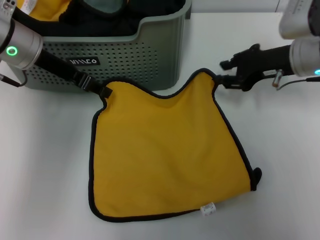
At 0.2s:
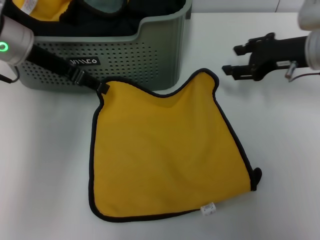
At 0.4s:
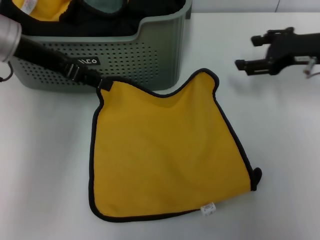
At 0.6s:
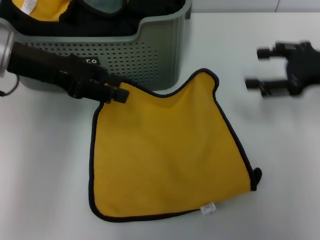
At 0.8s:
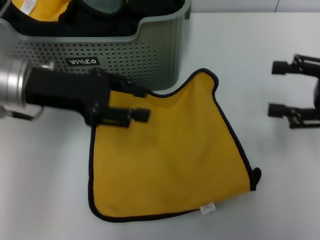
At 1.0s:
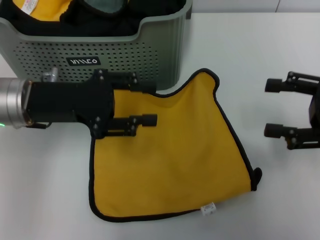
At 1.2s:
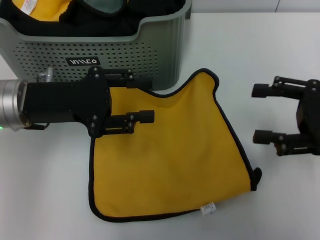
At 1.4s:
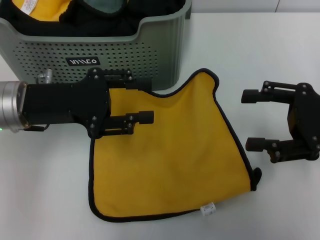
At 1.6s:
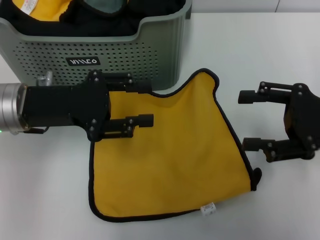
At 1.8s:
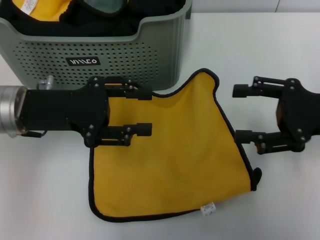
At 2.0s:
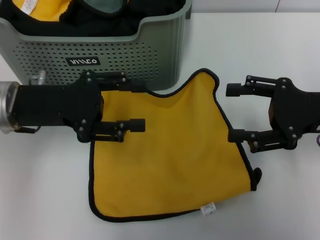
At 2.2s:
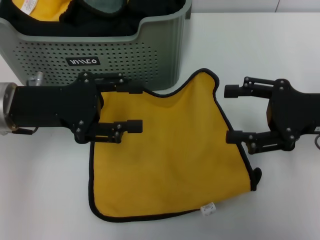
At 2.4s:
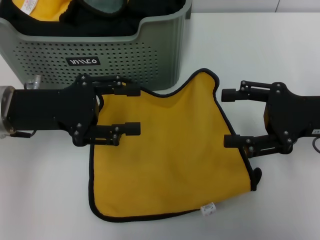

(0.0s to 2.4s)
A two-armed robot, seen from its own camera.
Task of the whole recording: pick up the towel from the storage box and lay it flat on the table.
0.0s - 1.2s: The left gripper goes about 10 cm backward, and opens its fingers; the right gripper shifts roughly 15 cm backward and to the right, and opens its fingers.
1.2s - 2.4s: There are only small adjustments of the grippers.

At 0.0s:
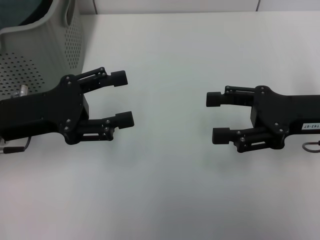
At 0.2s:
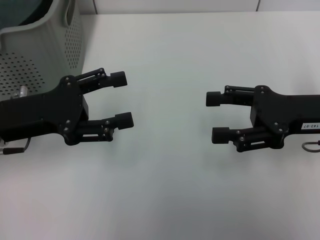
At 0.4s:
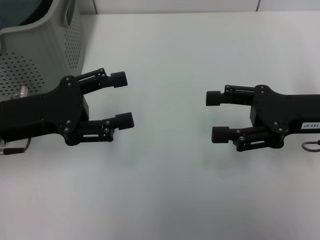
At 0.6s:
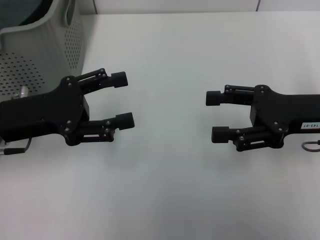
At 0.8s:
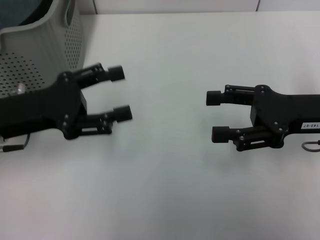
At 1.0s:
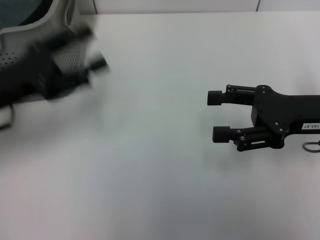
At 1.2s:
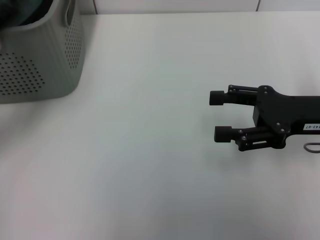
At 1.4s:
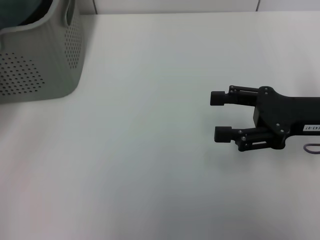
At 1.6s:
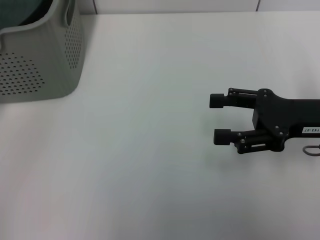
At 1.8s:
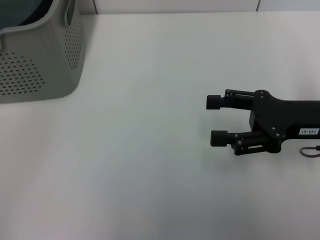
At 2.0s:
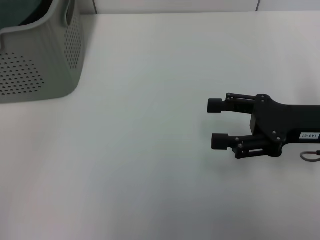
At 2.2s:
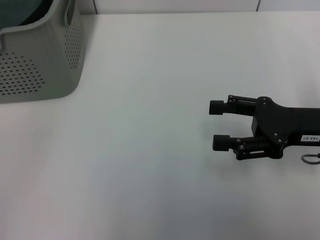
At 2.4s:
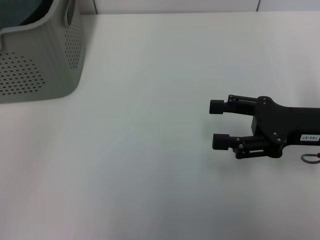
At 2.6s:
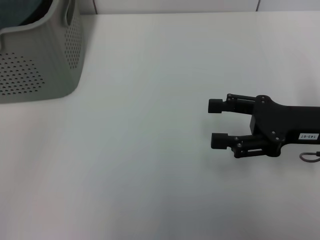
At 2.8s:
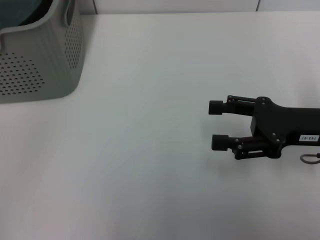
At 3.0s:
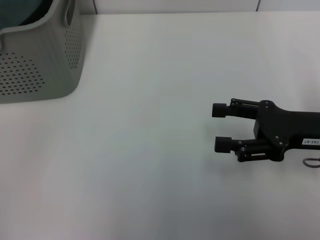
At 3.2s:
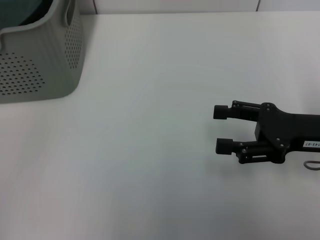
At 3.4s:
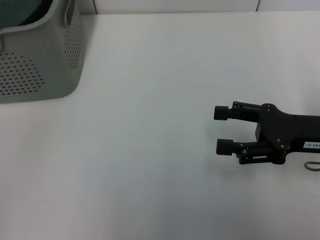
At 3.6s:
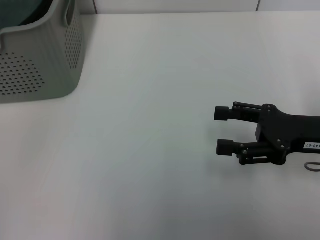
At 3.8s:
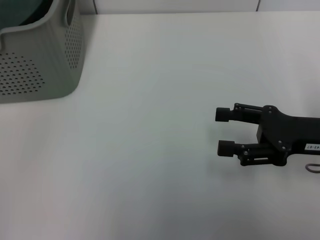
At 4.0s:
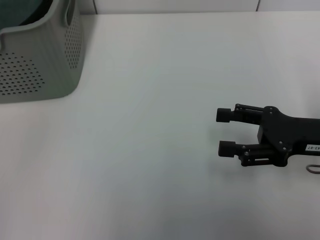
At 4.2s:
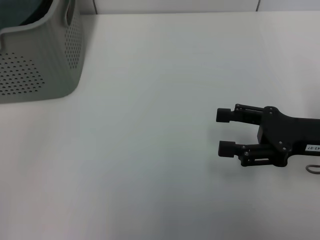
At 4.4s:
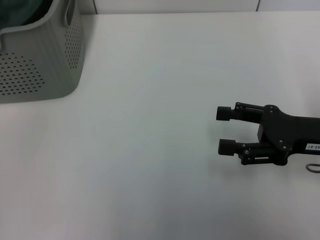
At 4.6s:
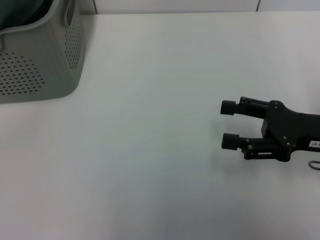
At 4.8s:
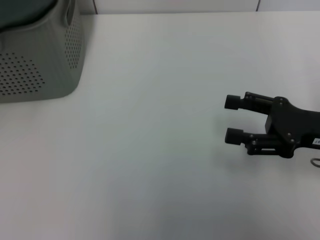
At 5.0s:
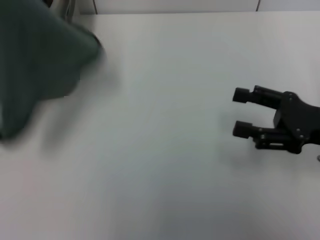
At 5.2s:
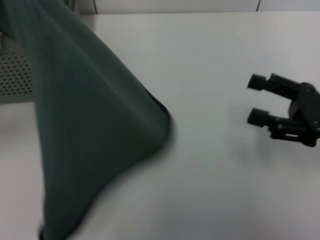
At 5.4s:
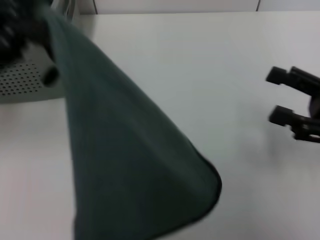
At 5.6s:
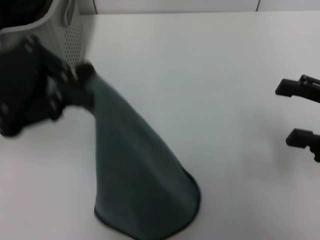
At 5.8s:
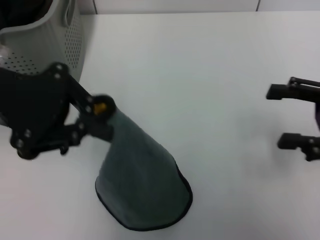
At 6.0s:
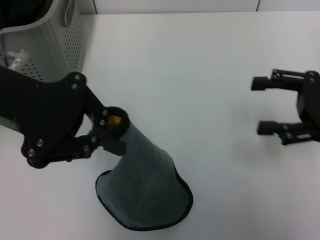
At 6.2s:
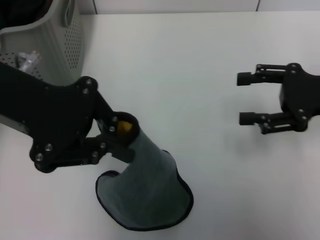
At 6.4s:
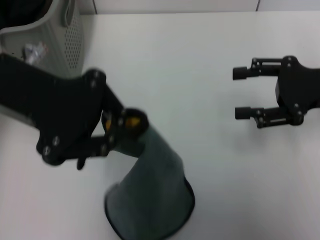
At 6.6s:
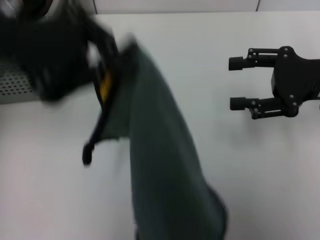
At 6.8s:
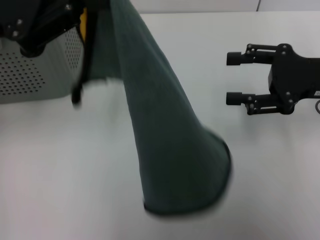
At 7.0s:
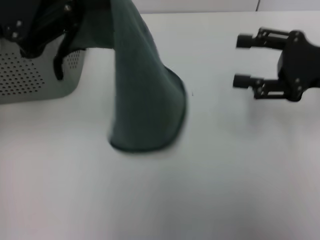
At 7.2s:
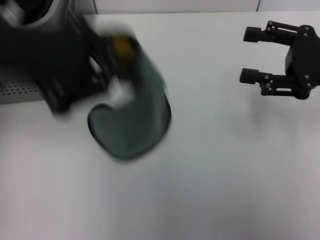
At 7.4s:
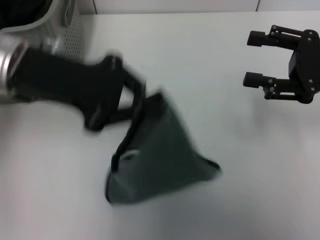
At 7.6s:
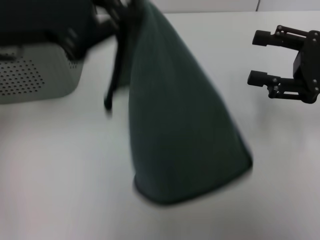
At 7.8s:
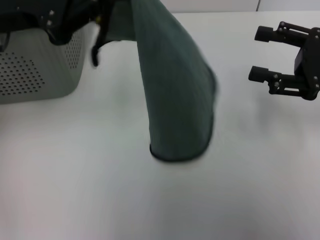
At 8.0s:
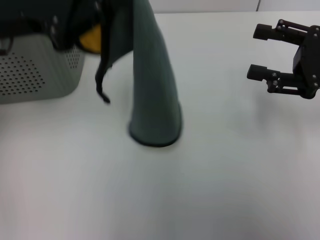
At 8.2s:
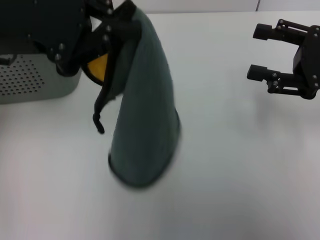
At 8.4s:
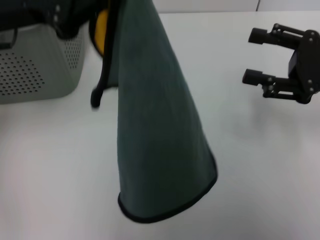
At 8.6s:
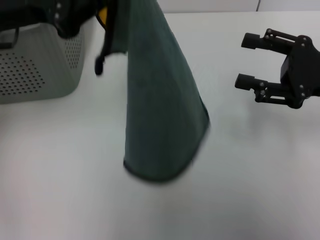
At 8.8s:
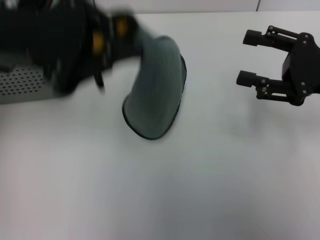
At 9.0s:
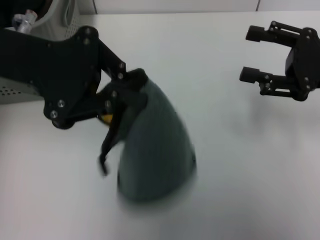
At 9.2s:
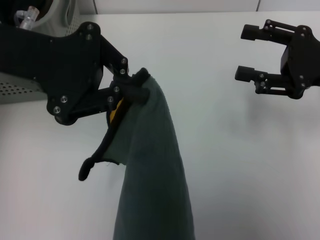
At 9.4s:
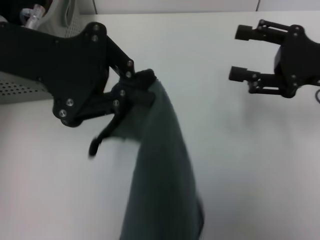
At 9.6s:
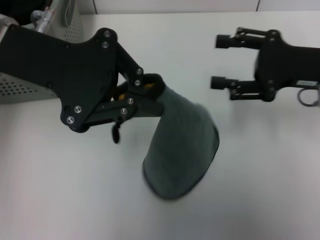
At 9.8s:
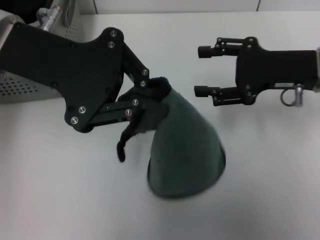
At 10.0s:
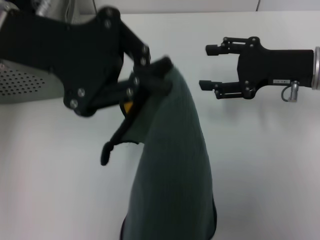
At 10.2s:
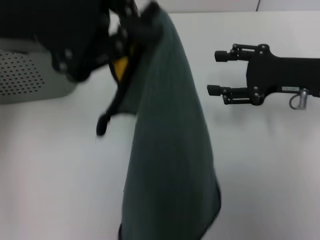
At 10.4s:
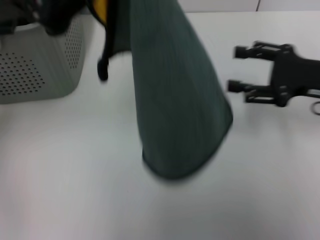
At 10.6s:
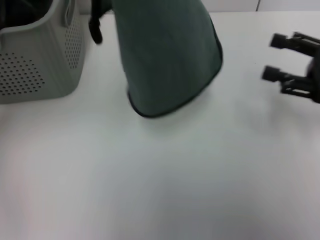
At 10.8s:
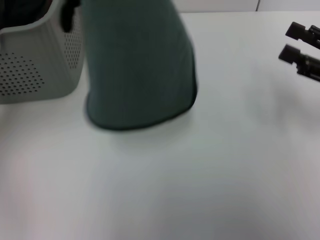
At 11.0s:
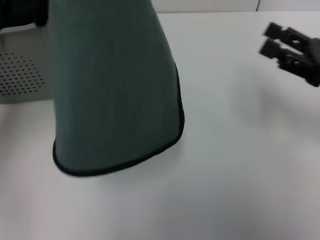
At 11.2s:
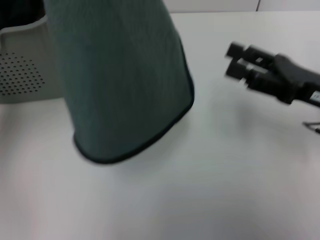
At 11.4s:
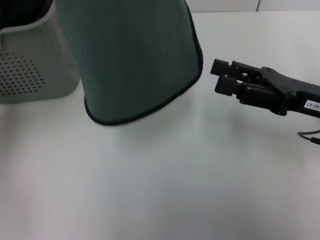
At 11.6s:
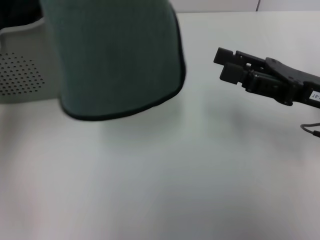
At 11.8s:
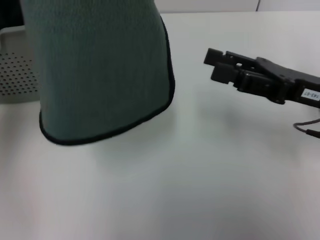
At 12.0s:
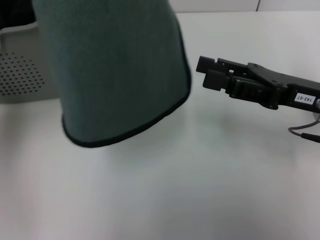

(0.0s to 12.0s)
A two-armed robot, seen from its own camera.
Task of the whole recording: pick up the towel from the storage box and lay it flat on the table.
Step, 0.0s - 4.2s: Pick up a towel with the left gripper.
0.0s - 1.6s: The left gripper is displaced to the left by roughly 10 cm.
4.4s - 6.0s: The right gripper changes place by about 5 cm. Meanwhile the left gripper travels to the right by about 15 cm.
10.4s - 12.0s: The right gripper shifts by about 5 cm.

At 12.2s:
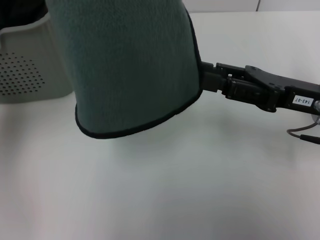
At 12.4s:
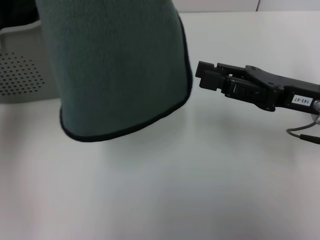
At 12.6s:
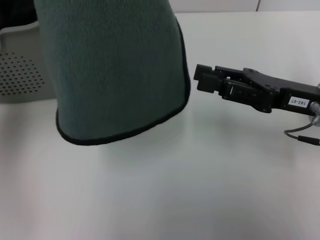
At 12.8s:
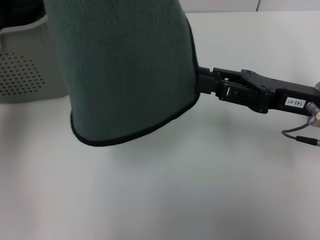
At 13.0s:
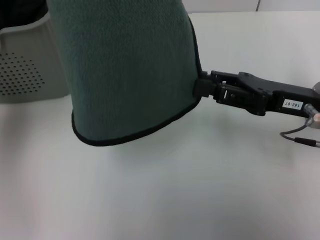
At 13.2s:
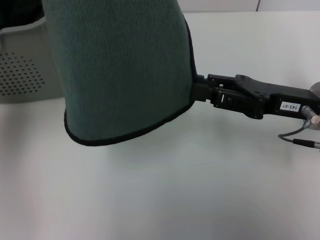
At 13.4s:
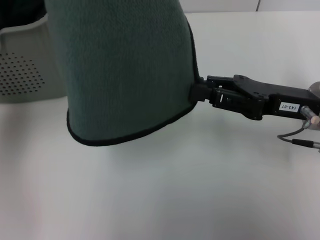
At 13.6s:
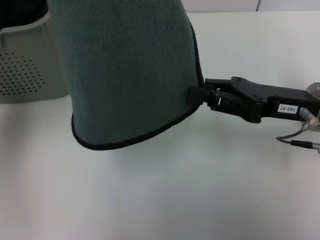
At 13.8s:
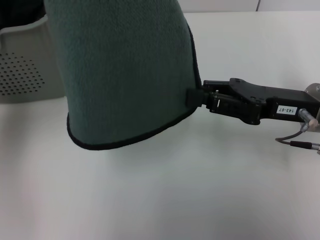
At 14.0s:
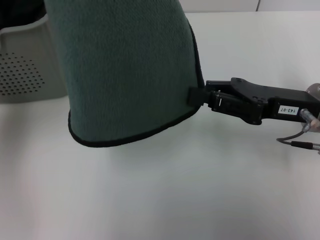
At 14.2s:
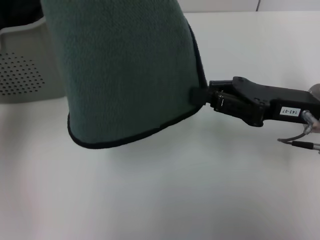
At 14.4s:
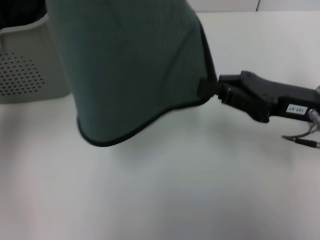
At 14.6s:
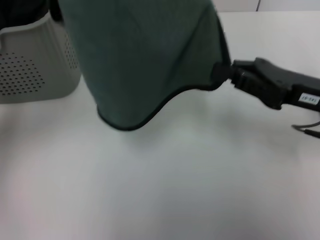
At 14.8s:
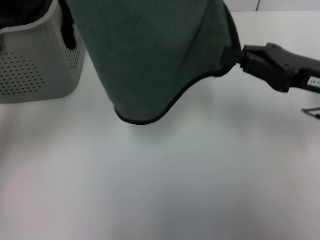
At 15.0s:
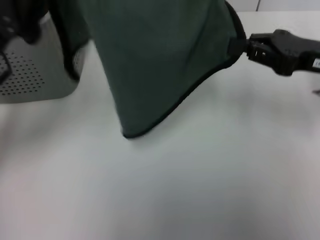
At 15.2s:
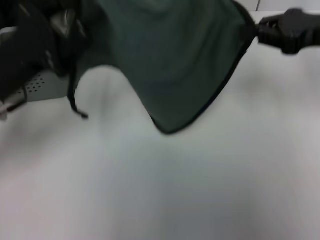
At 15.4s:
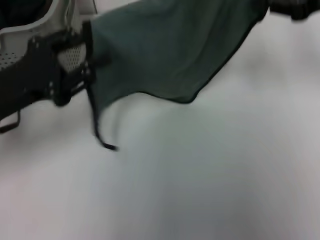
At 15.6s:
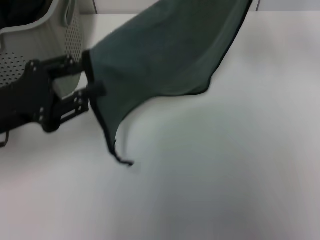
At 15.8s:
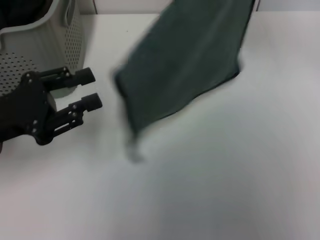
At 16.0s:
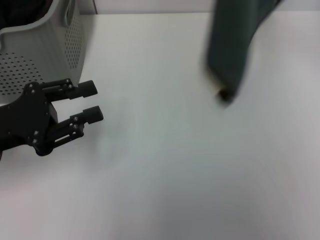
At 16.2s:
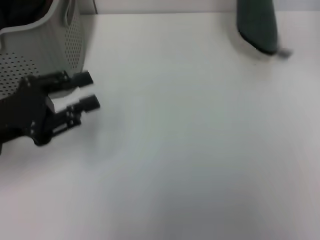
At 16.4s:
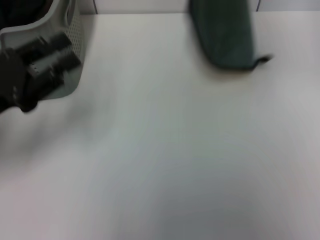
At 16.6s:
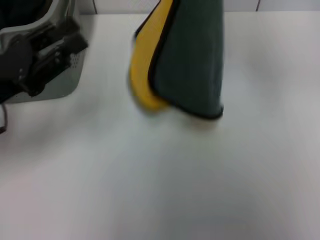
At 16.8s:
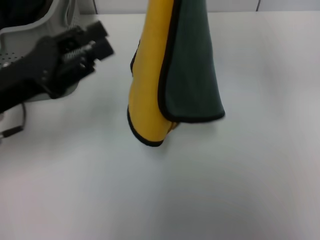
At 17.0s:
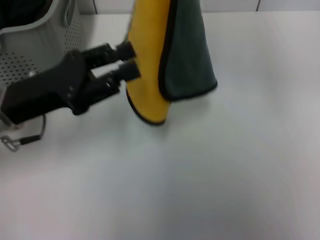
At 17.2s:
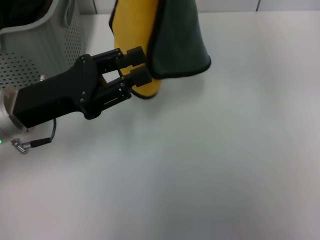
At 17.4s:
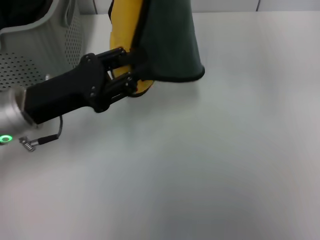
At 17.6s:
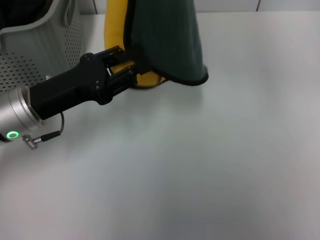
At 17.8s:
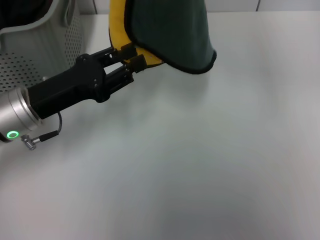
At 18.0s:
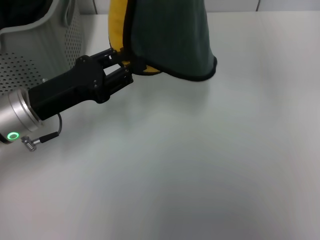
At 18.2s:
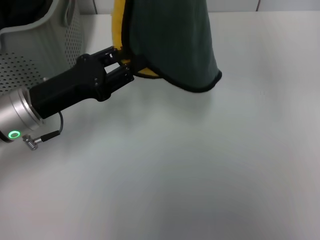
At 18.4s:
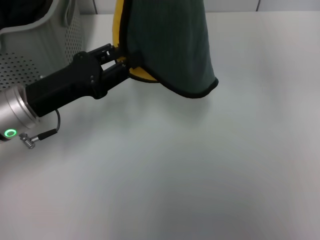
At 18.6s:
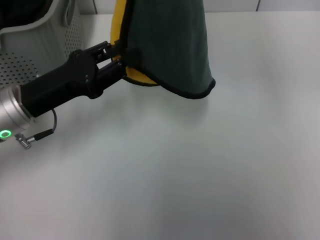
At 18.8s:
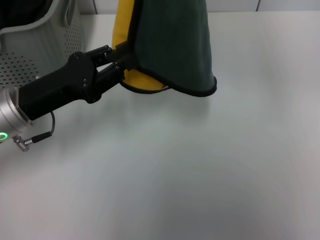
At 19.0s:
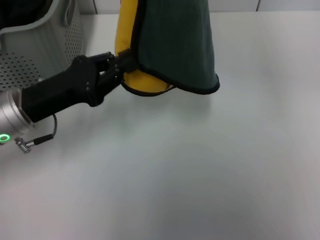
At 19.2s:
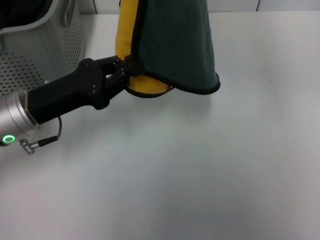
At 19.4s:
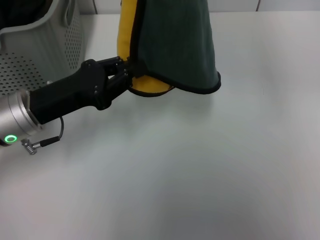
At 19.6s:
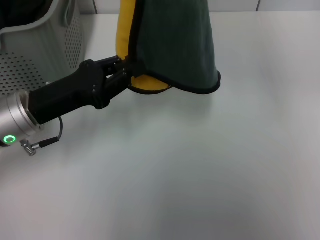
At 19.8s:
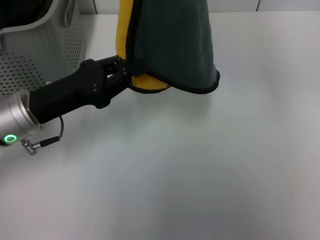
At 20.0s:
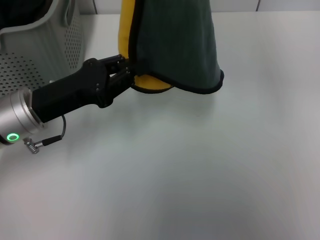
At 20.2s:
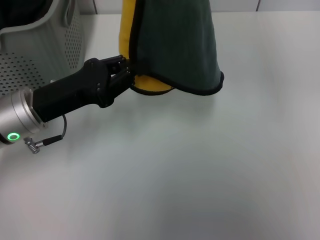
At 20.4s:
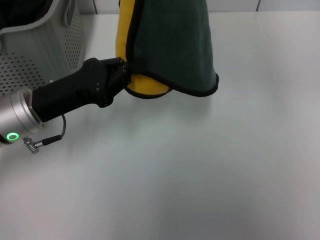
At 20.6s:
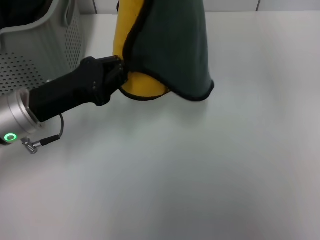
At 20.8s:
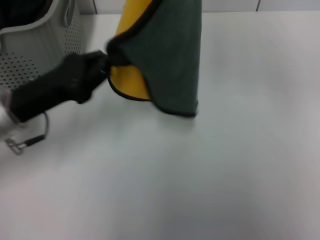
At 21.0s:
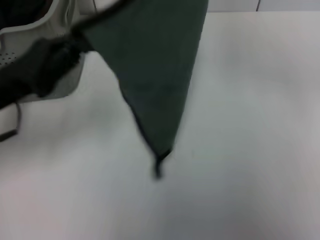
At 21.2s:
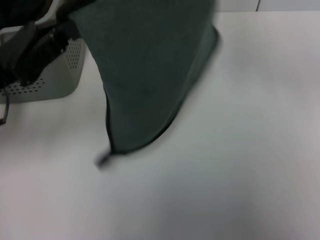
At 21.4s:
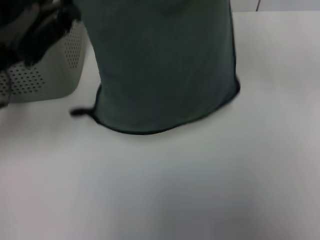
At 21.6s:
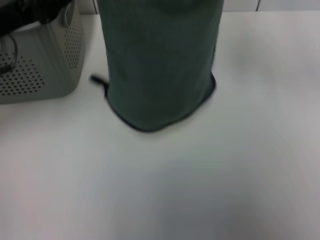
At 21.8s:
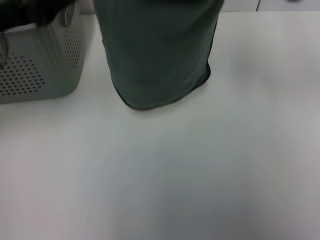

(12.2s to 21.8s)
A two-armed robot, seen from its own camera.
Task of the whole recording: pick up the towel from the storage box and lay it flat on the table.
12.2s - 13.8s: The right gripper closes up.
13.8s - 15.4s: The right gripper moves upward, forward and to the right, about 15 cm; the left gripper goes some 10 cm downward, and opens its fingers.
15.4s - 17.0s: The right gripper moves upward and to the left, about 15 cm.
17.0s - 20.2s: The grippers move only a little.
20.2s - 21.8s: The left gripper moves upward, some 10 cm, while the right gripper heads downward and to the right, covering some 10 cm.
